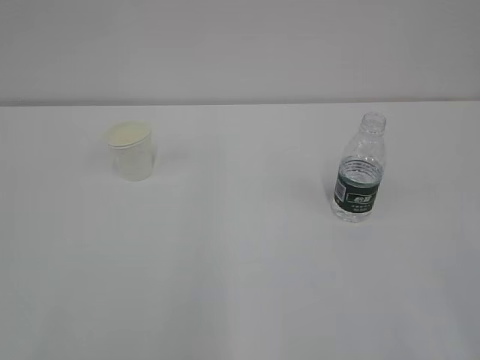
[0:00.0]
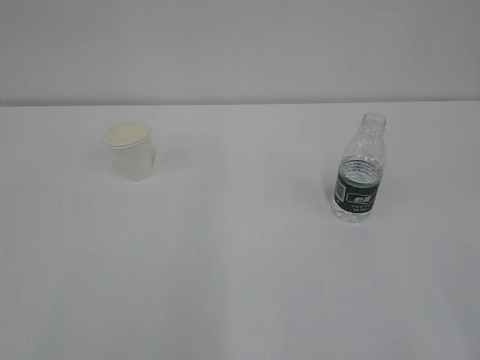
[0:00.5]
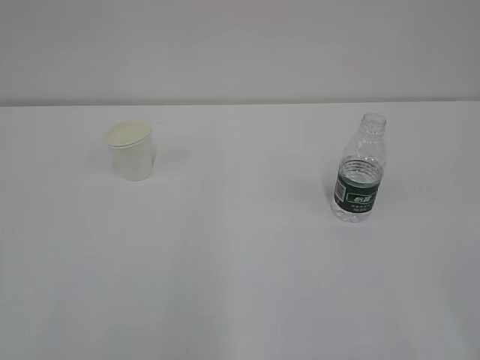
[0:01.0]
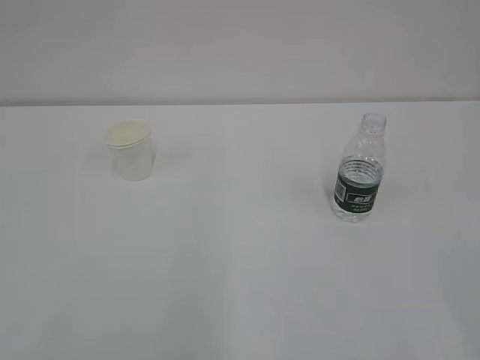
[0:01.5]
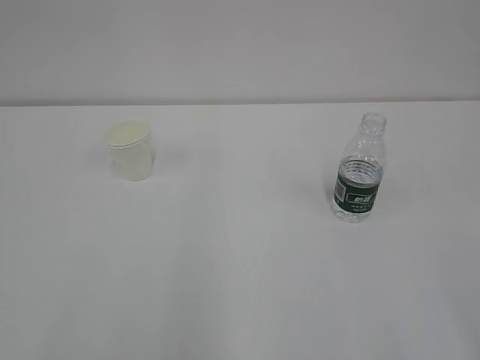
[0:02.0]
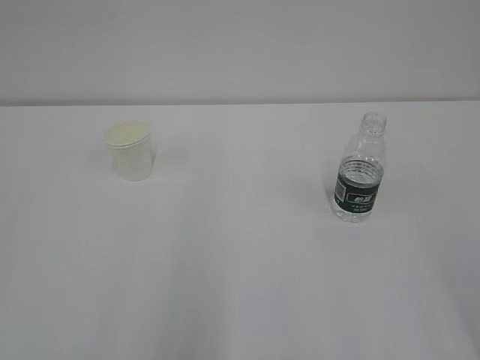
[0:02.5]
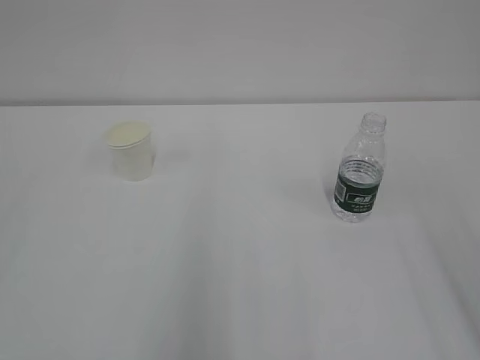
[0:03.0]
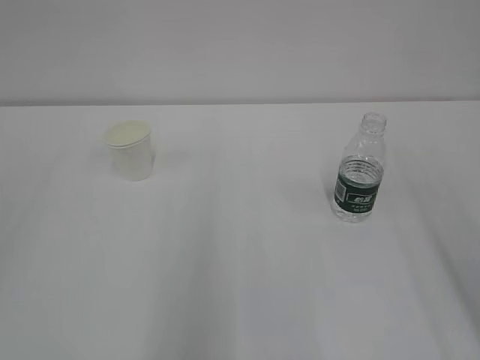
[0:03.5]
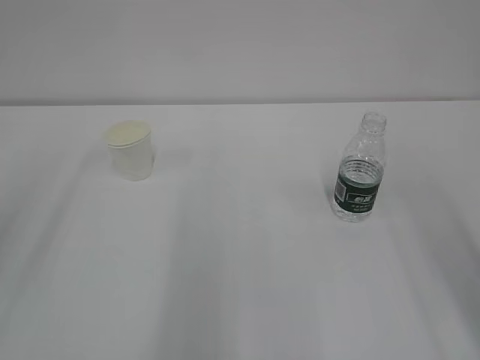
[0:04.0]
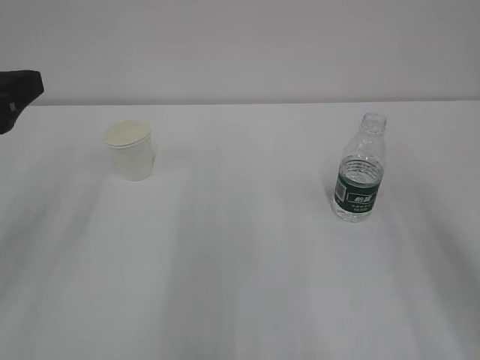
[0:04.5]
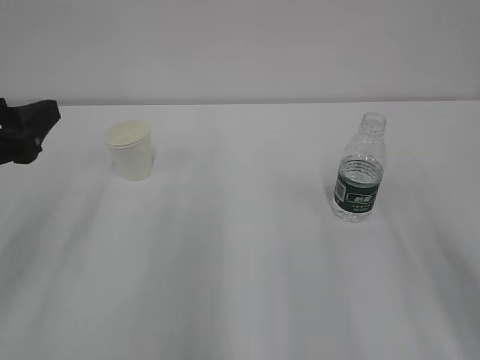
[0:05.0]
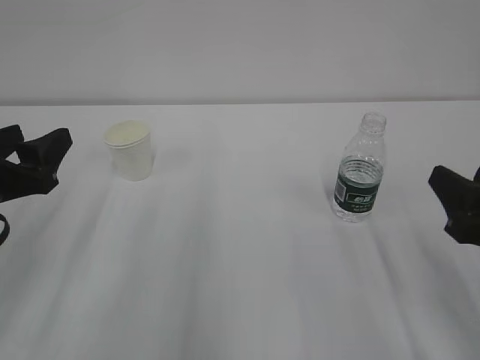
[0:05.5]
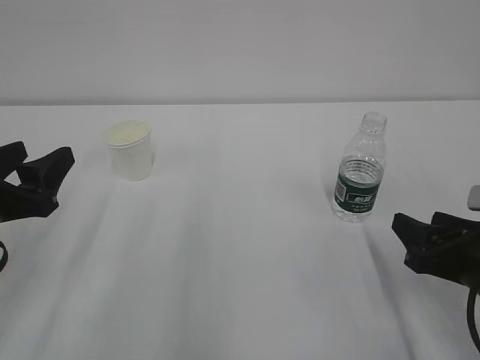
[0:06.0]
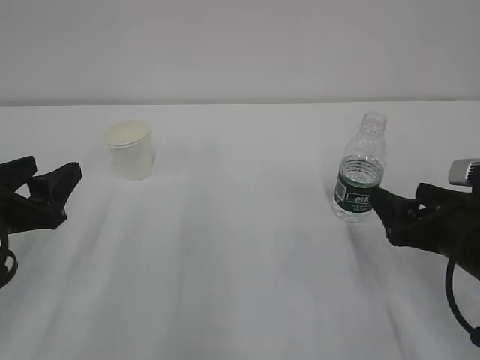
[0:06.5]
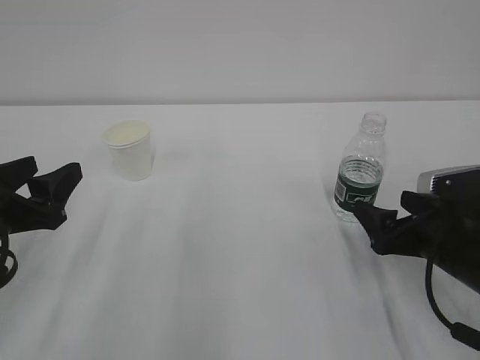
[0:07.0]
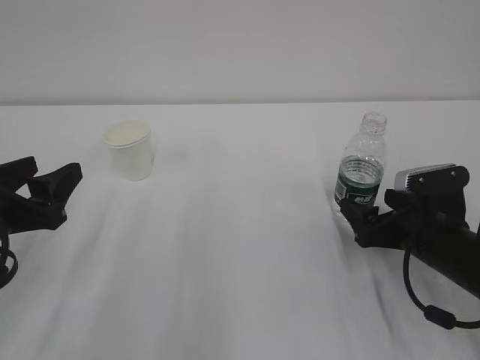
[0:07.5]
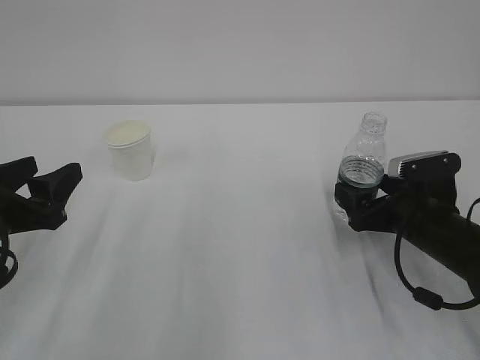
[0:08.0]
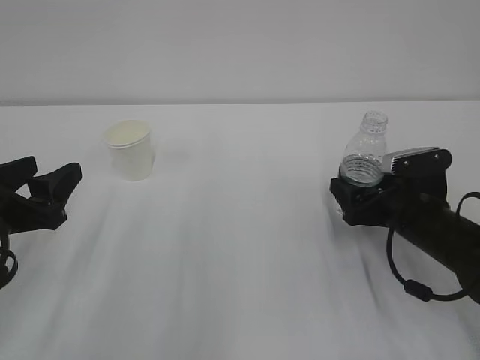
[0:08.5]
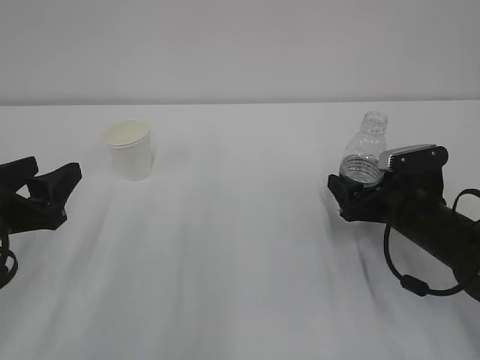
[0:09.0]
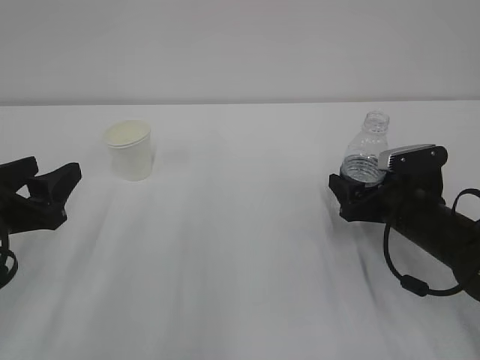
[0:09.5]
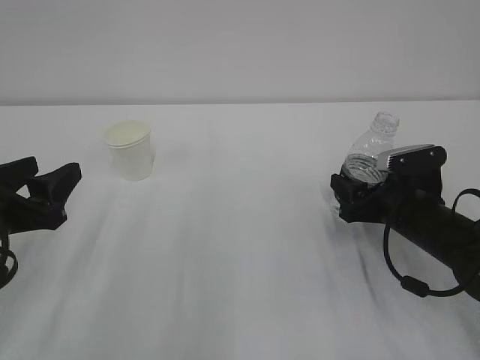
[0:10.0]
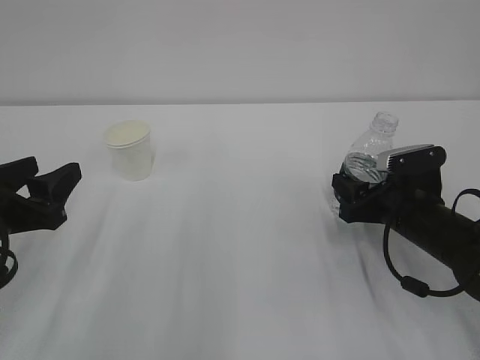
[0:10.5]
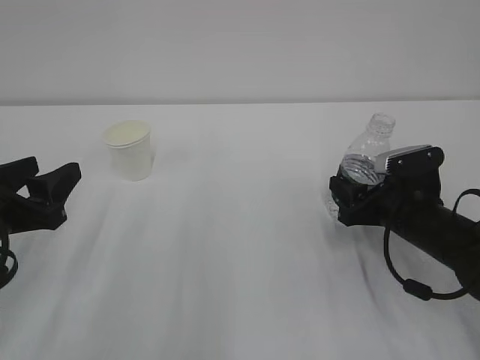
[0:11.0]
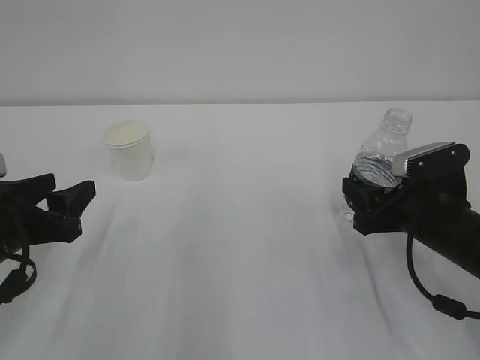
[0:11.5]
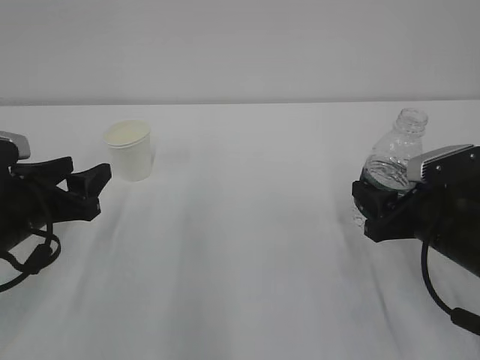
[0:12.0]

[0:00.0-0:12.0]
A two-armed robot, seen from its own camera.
0:04.0 to 0:06.0: The right gripper travels downward by approximately 20 cm; the left gripper is displaced downward by approximately 15 cm.
0:06.0 to 0:08.0: The right gripper goes some 10 cm forward, and opens its fingers.
0:08.0 to 0:10.0: The right gripper closes.
0:10.0 to 0:12.0: The right gripper heads backward, covering about 5 cm.

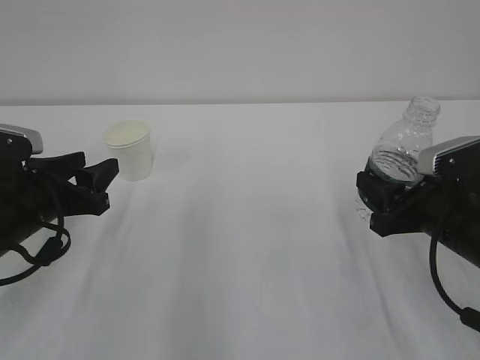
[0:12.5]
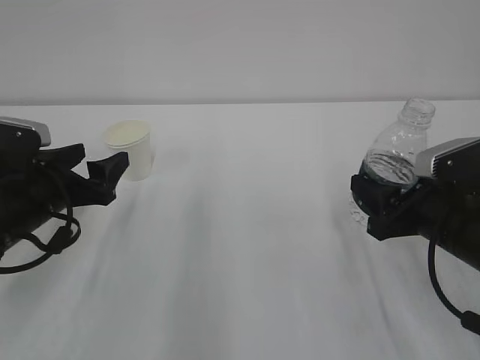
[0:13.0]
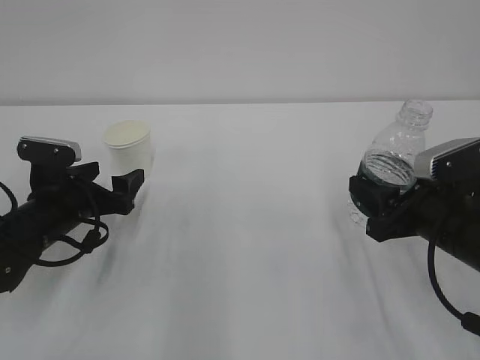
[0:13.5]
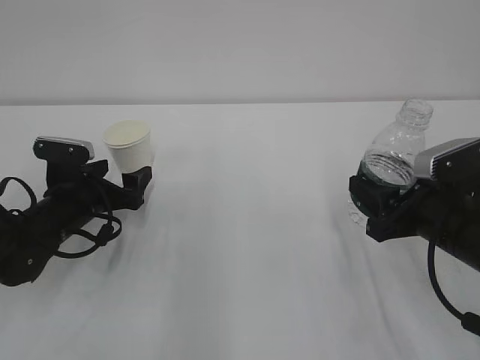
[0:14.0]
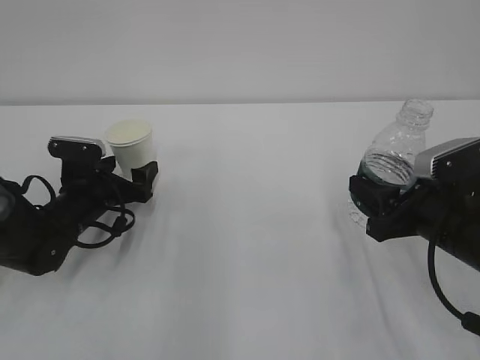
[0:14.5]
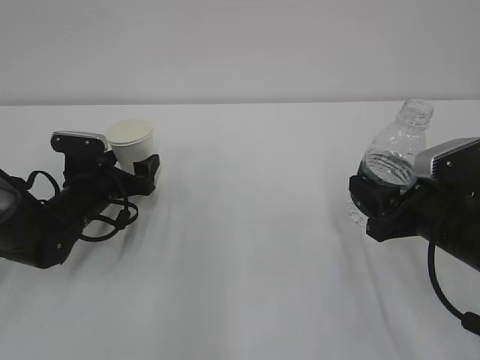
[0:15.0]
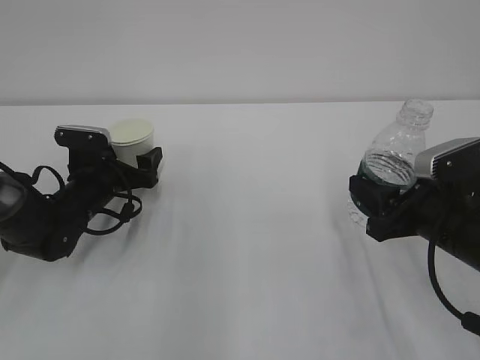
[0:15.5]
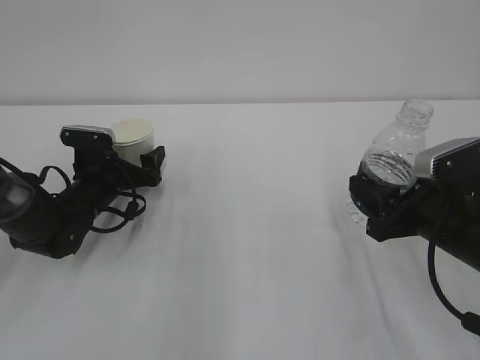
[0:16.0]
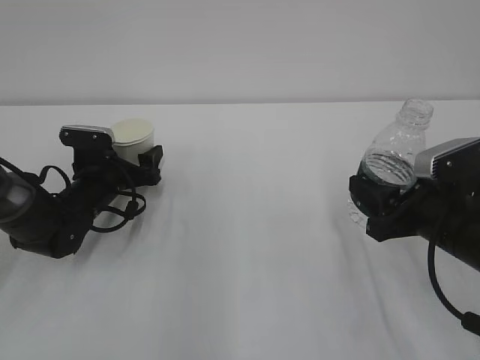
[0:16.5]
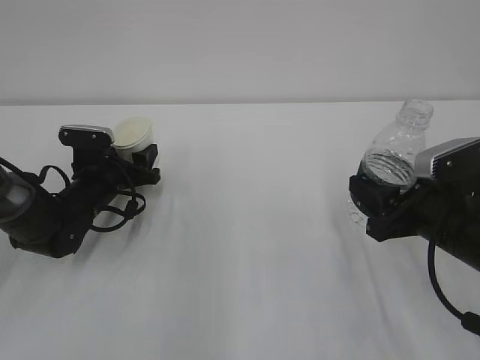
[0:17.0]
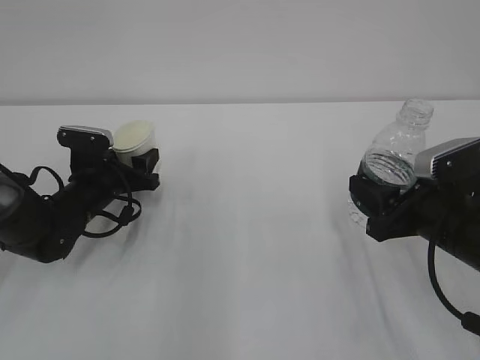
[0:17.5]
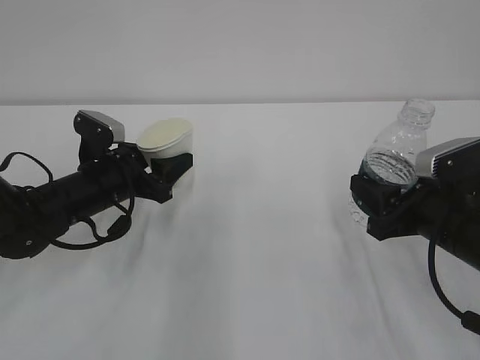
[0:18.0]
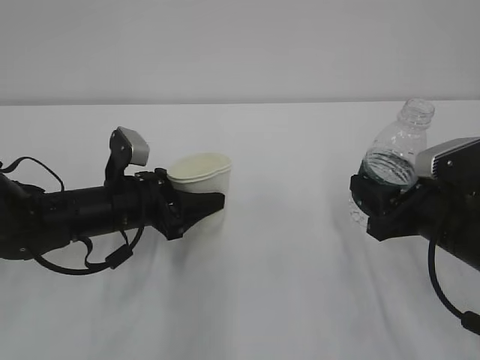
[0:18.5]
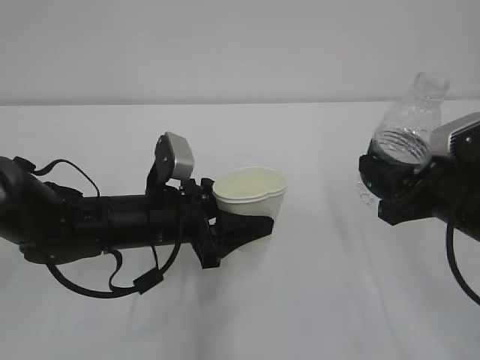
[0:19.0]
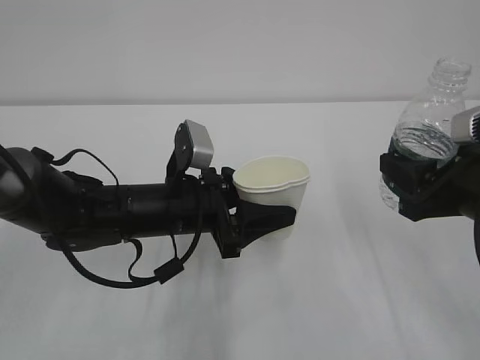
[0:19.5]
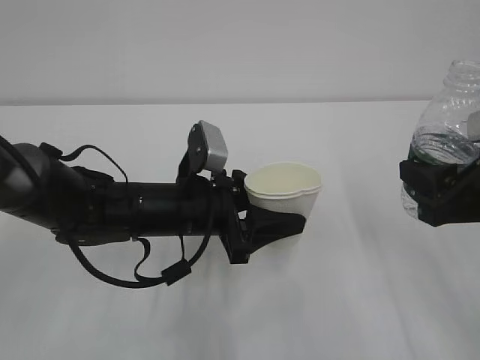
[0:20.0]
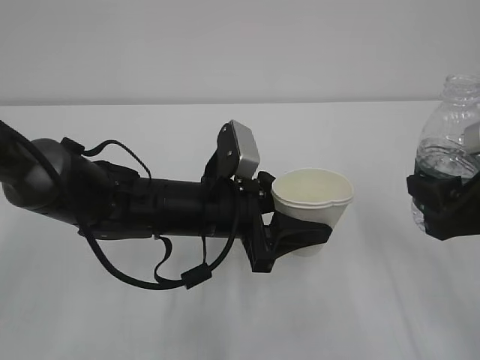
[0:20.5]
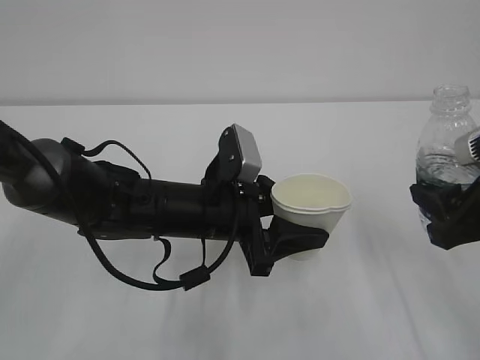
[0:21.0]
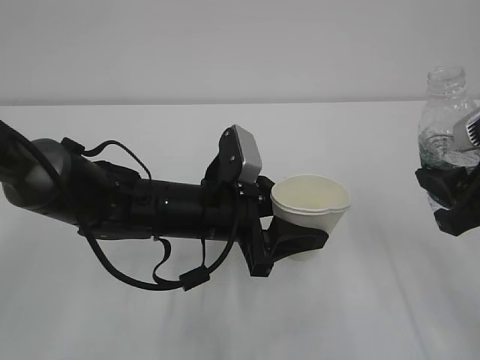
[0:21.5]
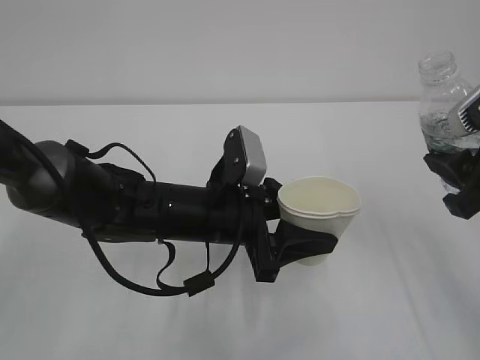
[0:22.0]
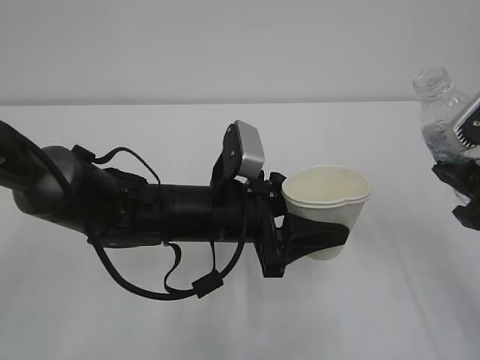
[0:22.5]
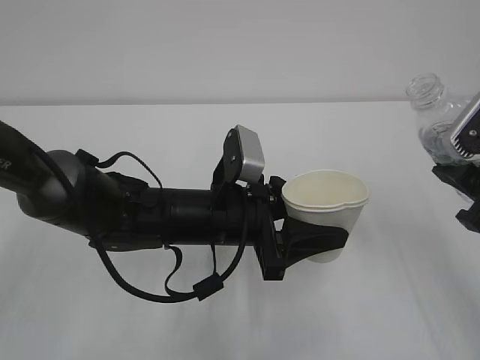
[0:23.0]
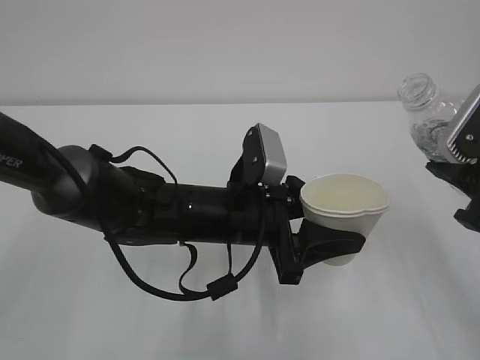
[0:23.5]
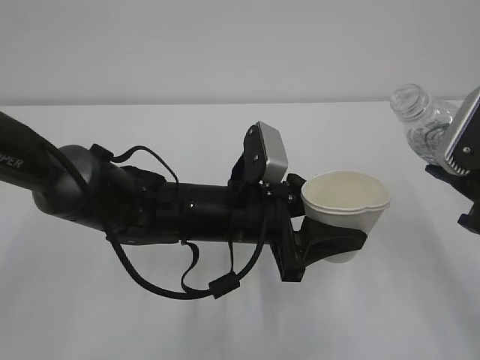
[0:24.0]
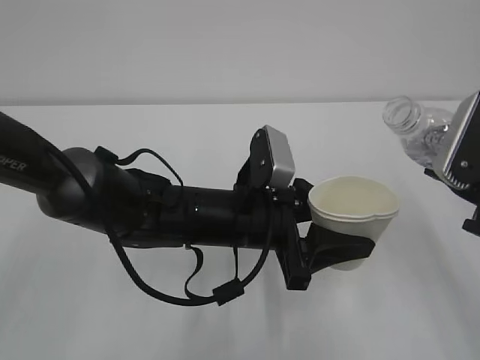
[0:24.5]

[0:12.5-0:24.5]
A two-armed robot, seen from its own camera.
0:12.5 to 0:14.5: The left gripper goes some 15 cm forward and downward, and opens.
0:14.5 to 0:16.5: The grippers stay close to where they were, moving slightly.
0:16.5 to 0:18.5: The left gripper heads backward and to the right, covering some 10 cm, and closes up.
0:18.5 to 0:20.5: The right gripper moves upward, approximately 5 cm. The left gripper travels to the right by approximately 10 cm.

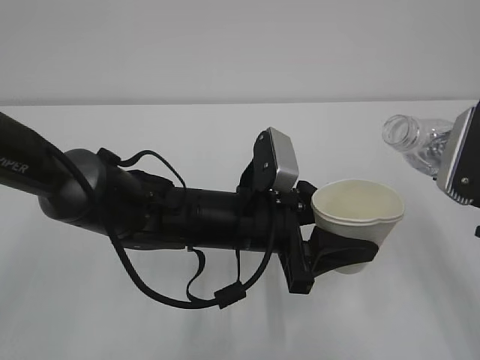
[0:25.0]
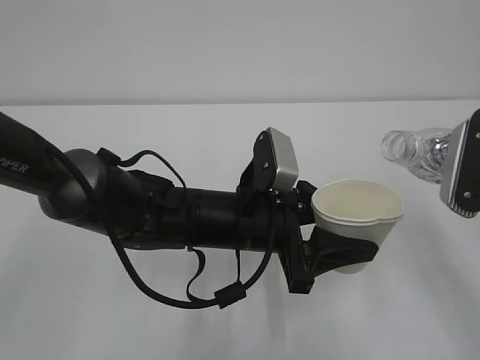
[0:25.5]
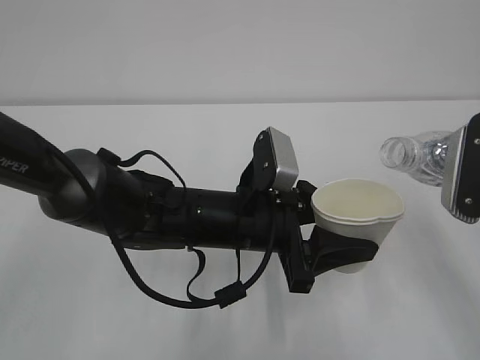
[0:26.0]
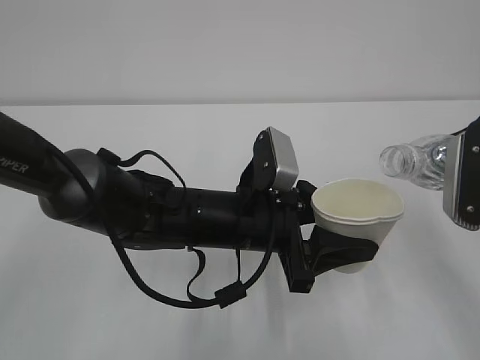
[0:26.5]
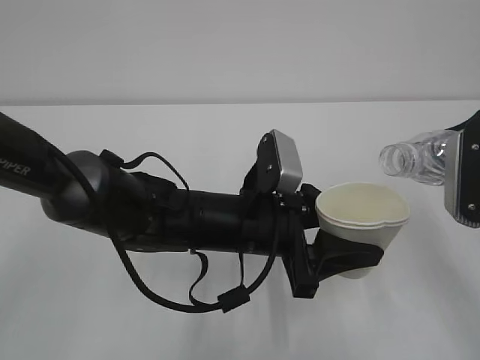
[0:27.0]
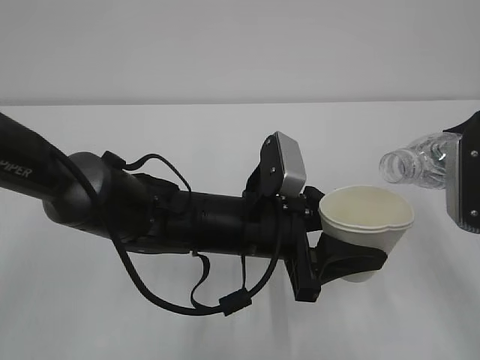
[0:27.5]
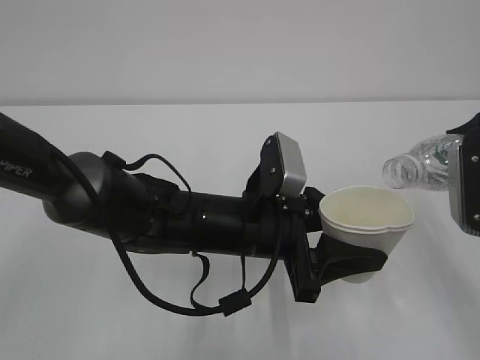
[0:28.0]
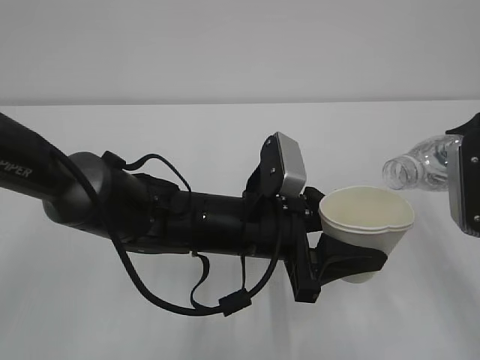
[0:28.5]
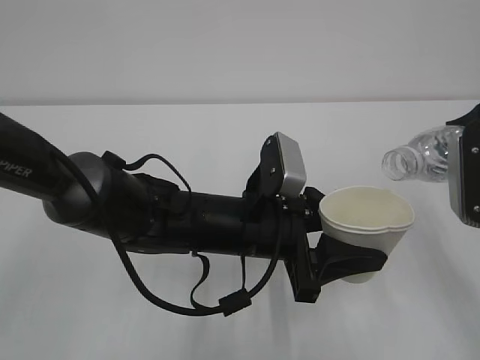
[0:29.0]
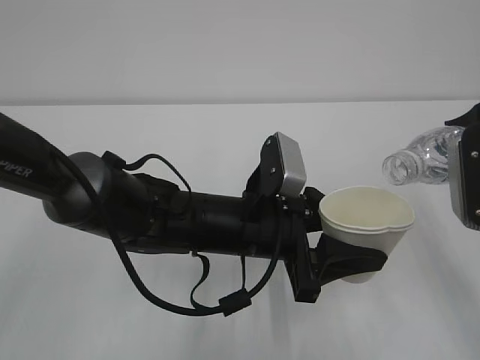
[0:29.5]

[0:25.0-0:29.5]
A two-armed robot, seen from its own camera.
0:25.0 to 0:27.0: There are only small adjustments of the grippers.
0:27.0 to 0:29.5: The grippers make only small movements.
